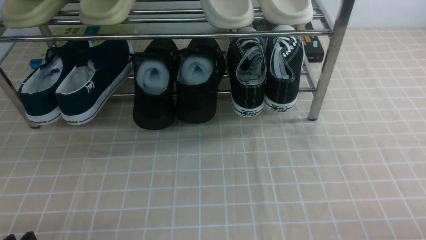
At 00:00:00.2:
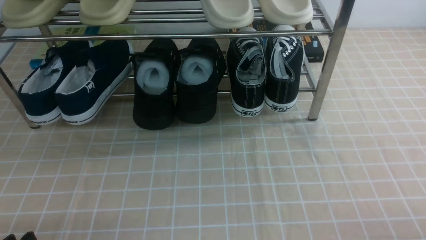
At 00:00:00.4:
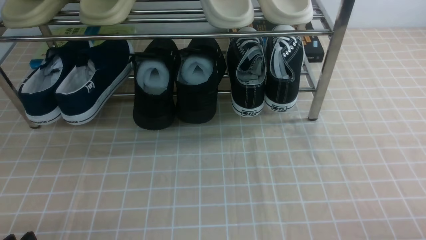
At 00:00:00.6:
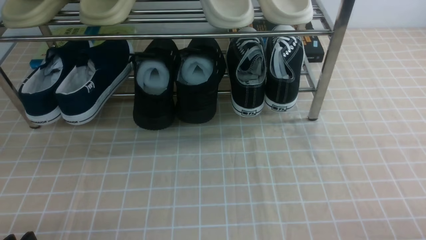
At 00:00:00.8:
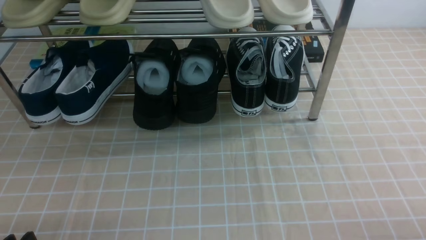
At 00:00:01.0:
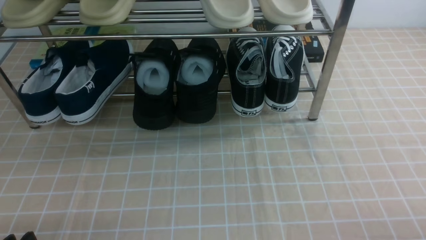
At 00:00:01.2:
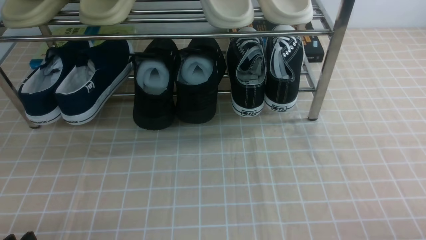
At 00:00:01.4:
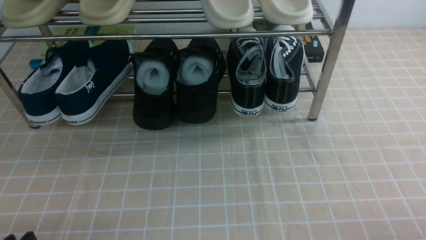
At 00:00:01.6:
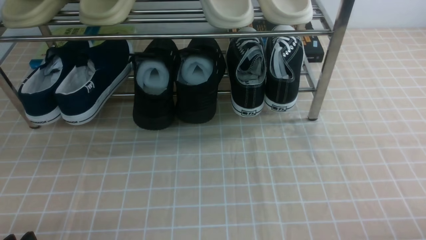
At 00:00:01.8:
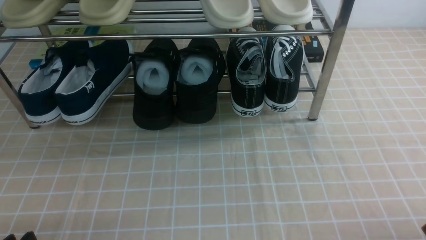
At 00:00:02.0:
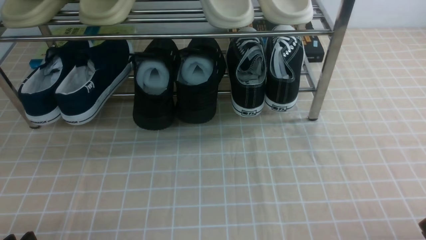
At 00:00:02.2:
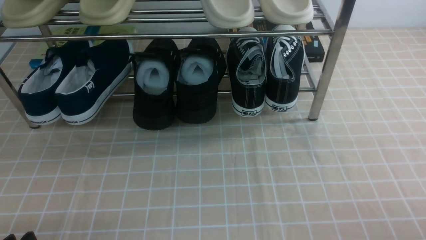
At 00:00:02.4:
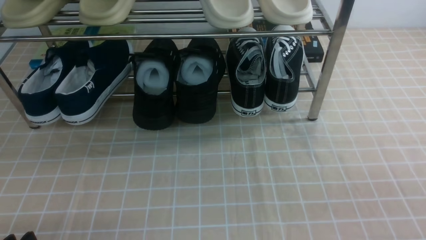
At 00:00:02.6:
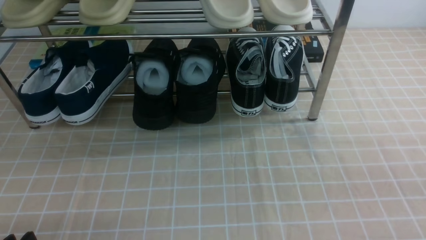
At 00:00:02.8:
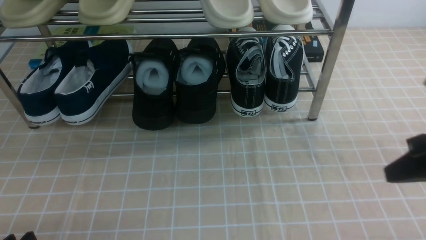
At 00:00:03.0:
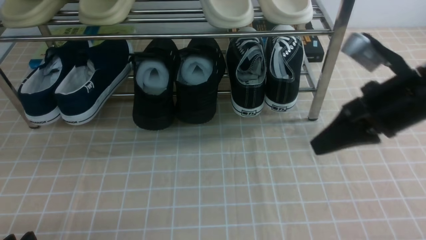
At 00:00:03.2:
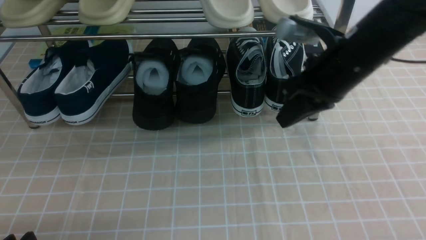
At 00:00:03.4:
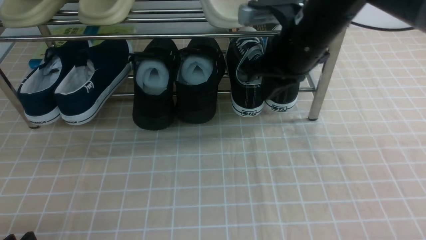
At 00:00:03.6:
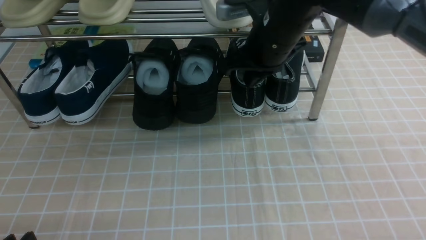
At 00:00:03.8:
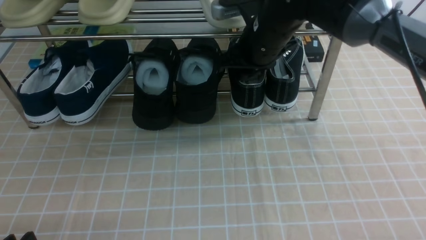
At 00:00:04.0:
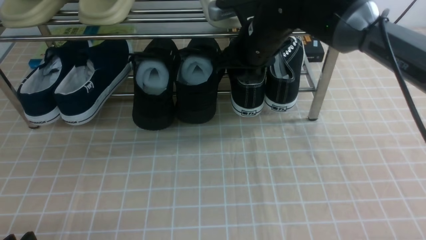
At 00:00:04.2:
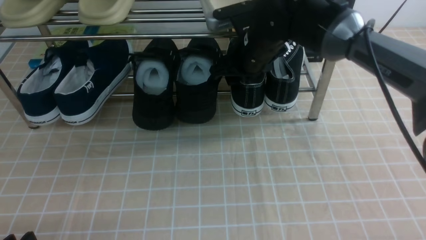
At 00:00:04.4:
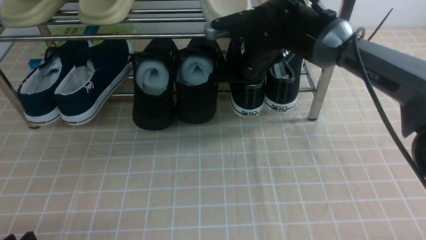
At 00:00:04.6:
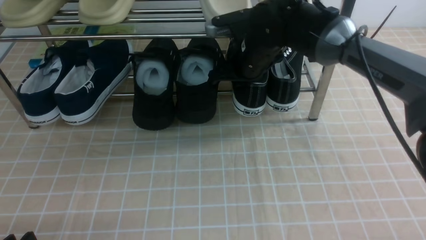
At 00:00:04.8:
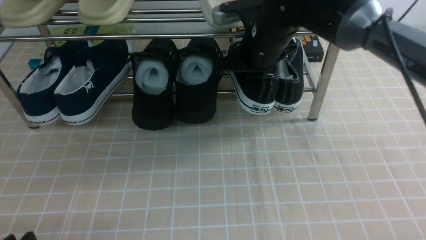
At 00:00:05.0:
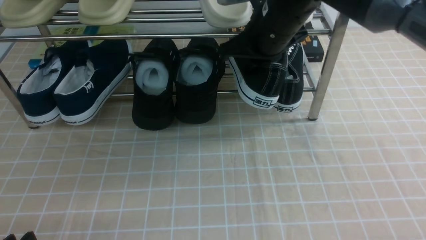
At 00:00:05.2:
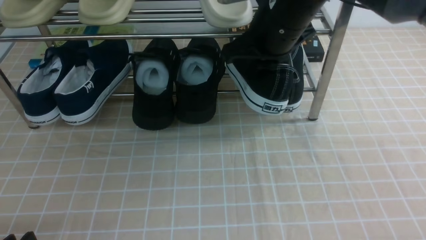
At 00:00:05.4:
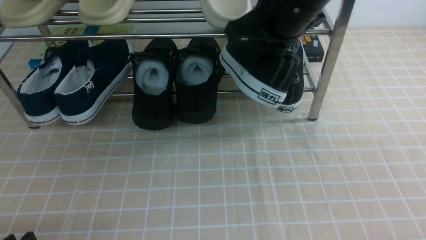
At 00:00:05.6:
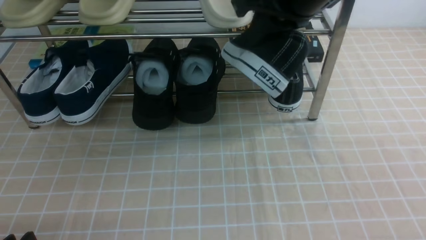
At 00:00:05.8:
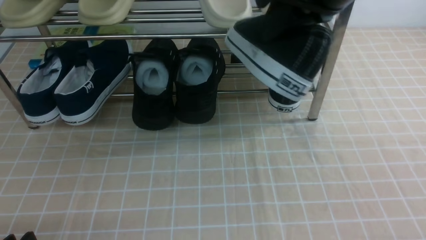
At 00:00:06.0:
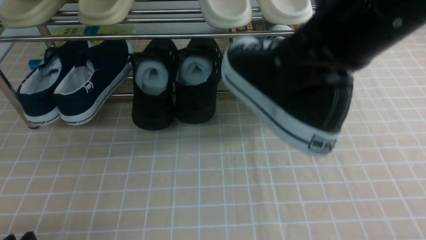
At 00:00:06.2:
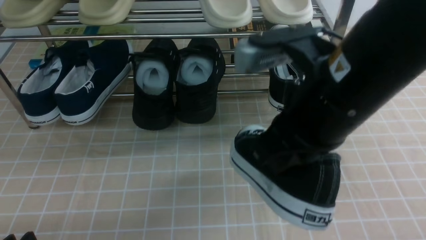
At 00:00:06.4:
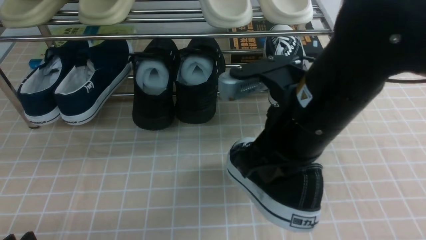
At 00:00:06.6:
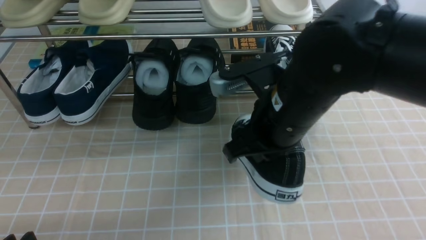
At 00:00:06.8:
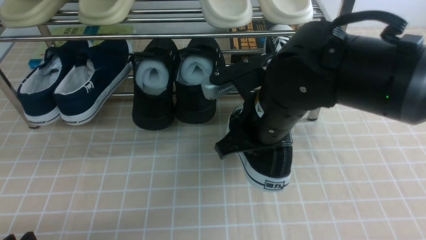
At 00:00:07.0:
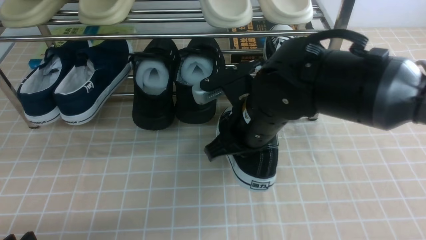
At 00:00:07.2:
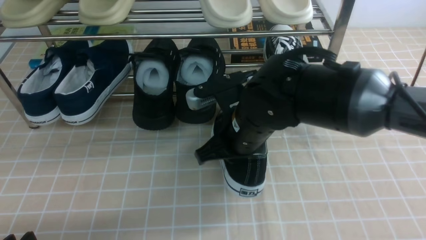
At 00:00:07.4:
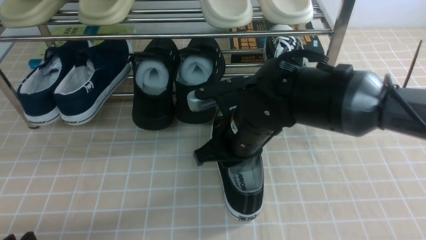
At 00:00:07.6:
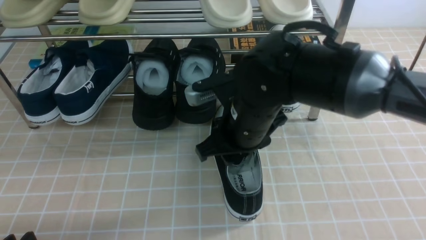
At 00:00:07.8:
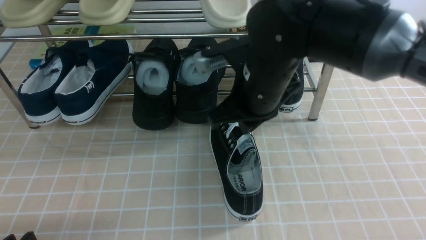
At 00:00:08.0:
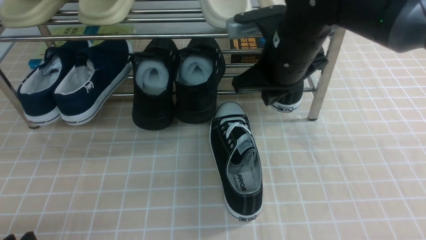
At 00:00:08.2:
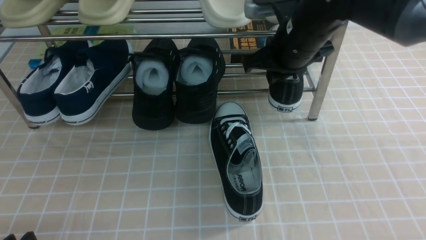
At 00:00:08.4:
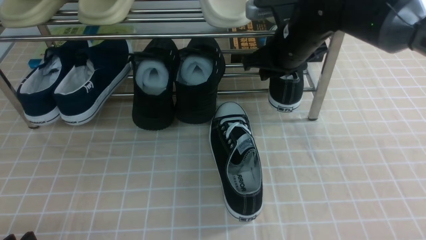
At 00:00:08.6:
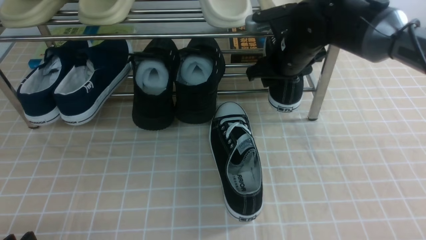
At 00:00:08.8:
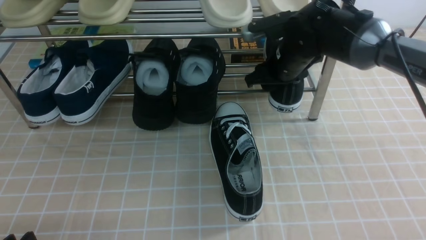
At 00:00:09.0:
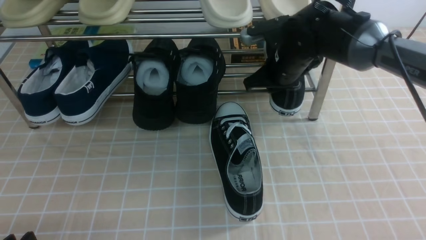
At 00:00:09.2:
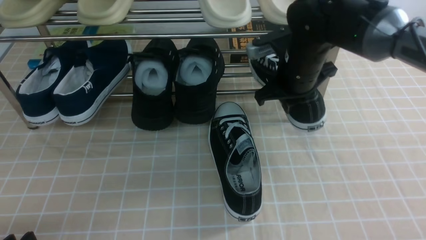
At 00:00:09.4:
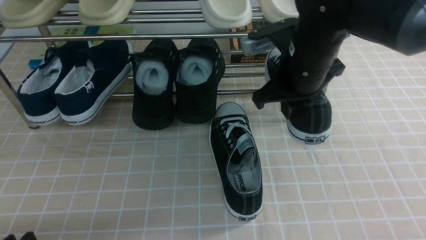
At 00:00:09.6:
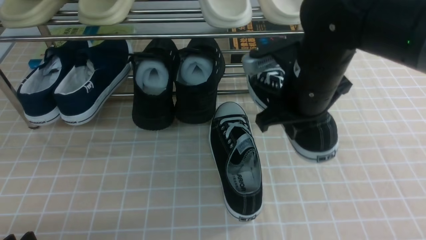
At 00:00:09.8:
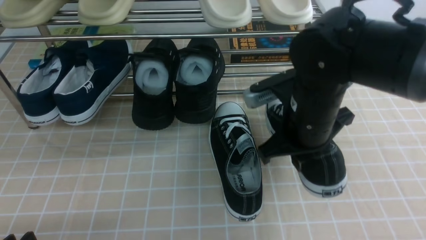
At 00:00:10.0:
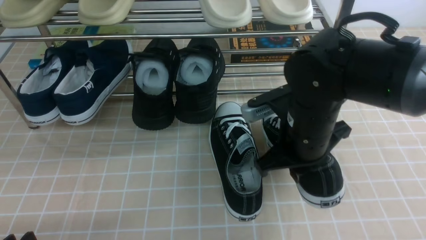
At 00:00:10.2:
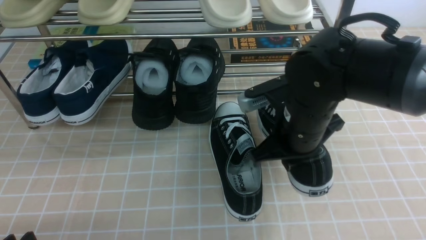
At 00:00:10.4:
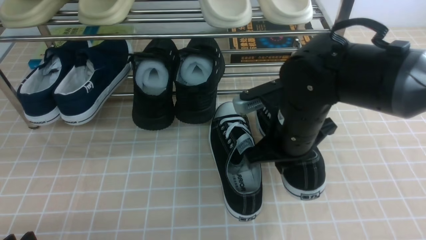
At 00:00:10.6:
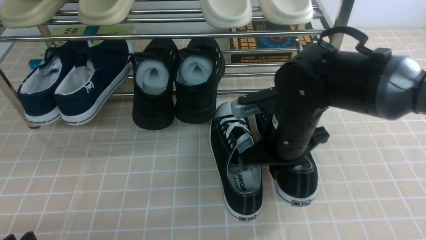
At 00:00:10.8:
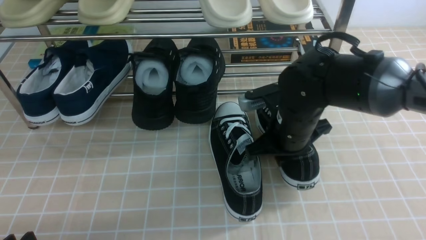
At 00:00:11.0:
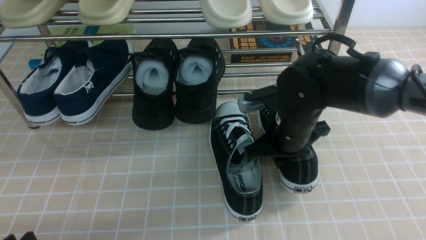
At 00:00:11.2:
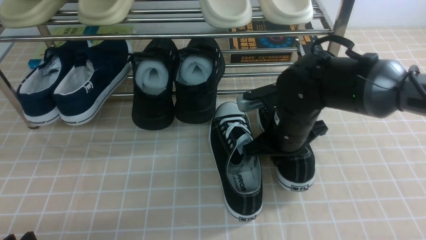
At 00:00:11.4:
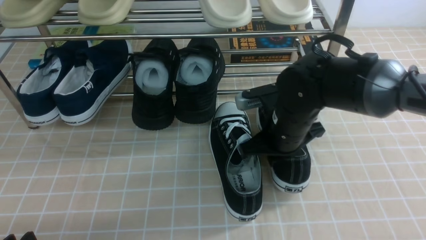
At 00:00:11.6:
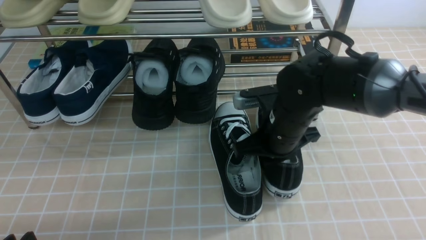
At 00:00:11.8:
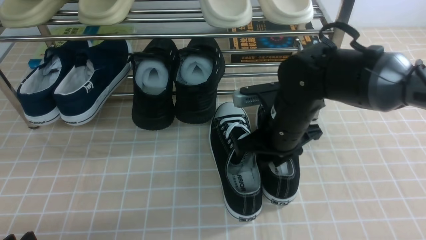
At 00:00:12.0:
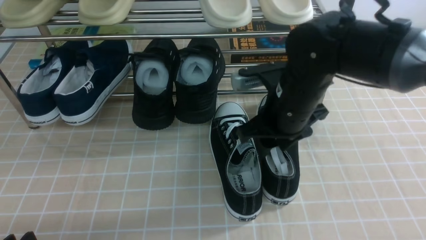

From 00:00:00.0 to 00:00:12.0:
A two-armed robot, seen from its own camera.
Step, from 00:00:00.0 to 00:00:04.2: use the right arm to clamp a shoe on the right side of the shoe rack.
Step, from 00:00:04.4 to 00:00:07.8: use the right arm to take out the clamped shoe from the shoe rack and put it down.
Step, from 00:00:08.0 to 00:00:08.8: use the right arm to clamp a shoe on the right side of the shoe rack.
Step, from 00:00:09.0 to 00:00:11.8: use the right arm to take out the clamped shoe from the shoe rack and put it down.
From 00:00:01.6 to 00:00:03.0: The right gripper heads forward and upward, covering approximately 25 cm, and closes up.
From 00:00:03.0 to 00:00:04.4: The right gripper shifts approximately 30 cm forward and to the left, and opens its fingers.
From 00:00:04.4 to 00:00:06.0: The right gripper is displaced backward and upward by some 25 cm, and closes.
From 00:00:06.0 to 00:00:07.6: The right gripper shifts roughly 20 cm downward and to the left, and opens up.
From 00:00:07.6 to 00:00:09.0: The right gripper heads forward and to the right, covering roughly 15 cm, and closes and opens again.
From 00:00:09.0 to 00:00:10.4: The right gripper goes approximately 15 cm backward, and closes up.
From 00:00:10.4 to 00:00:12.0: The right gripper opens up.

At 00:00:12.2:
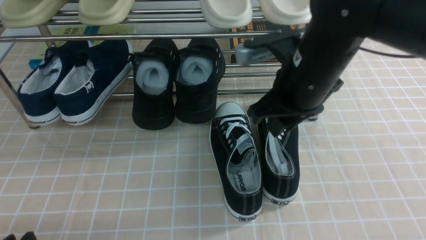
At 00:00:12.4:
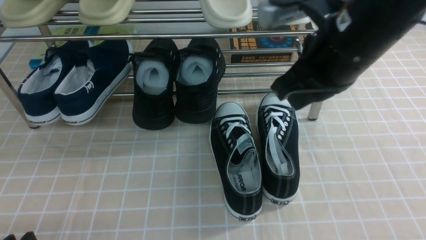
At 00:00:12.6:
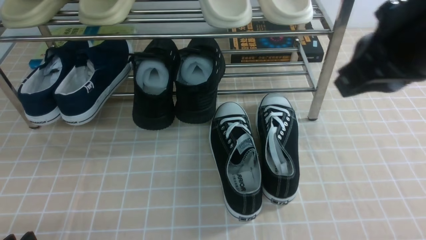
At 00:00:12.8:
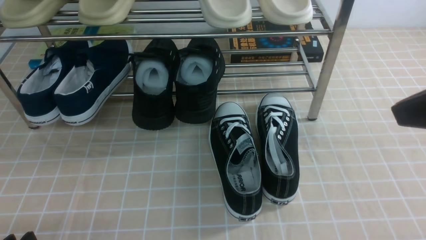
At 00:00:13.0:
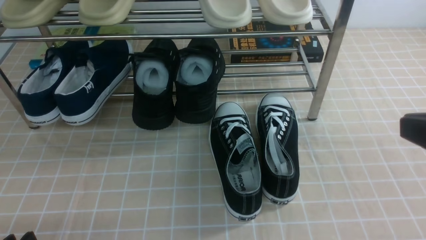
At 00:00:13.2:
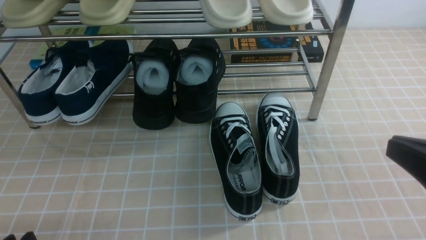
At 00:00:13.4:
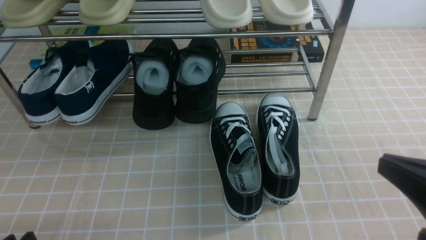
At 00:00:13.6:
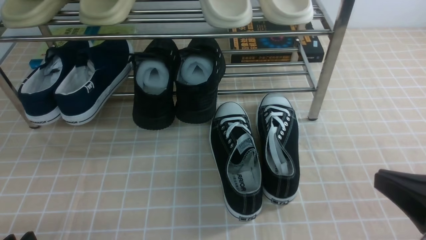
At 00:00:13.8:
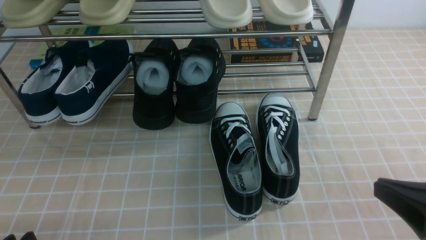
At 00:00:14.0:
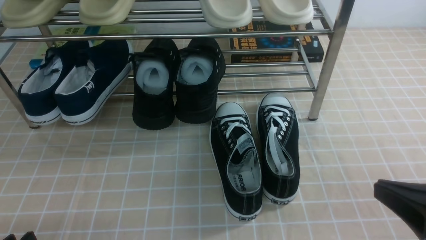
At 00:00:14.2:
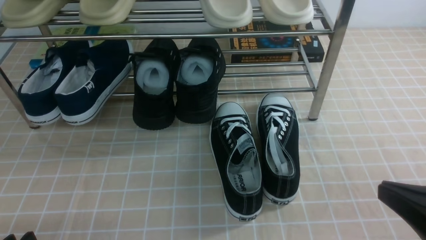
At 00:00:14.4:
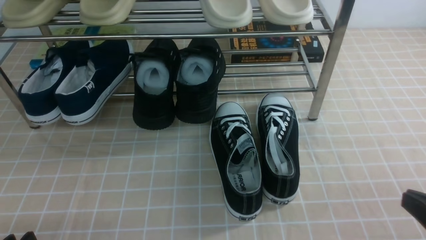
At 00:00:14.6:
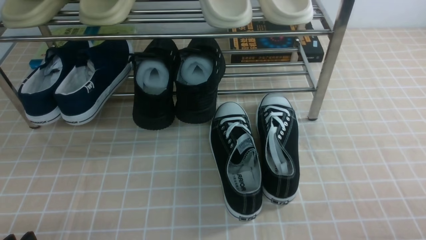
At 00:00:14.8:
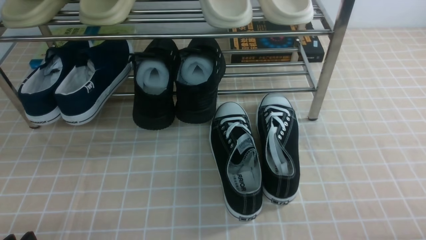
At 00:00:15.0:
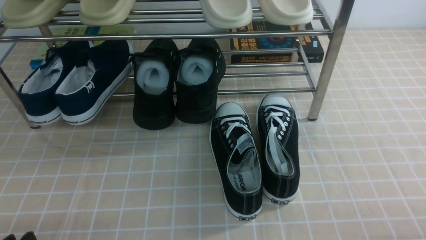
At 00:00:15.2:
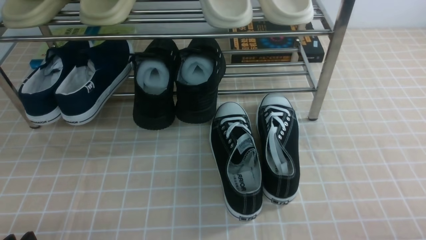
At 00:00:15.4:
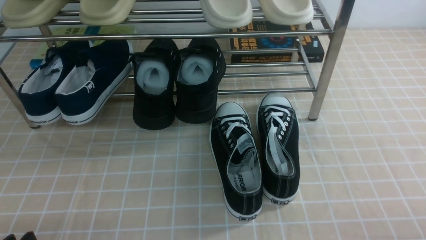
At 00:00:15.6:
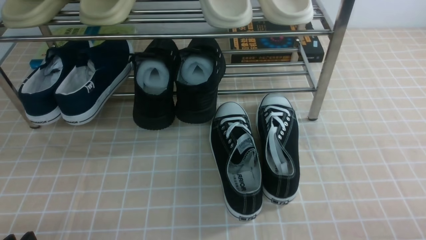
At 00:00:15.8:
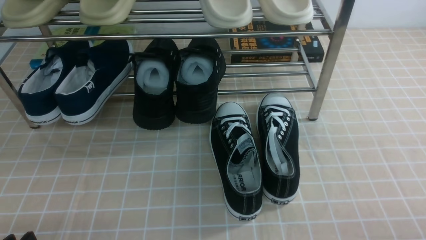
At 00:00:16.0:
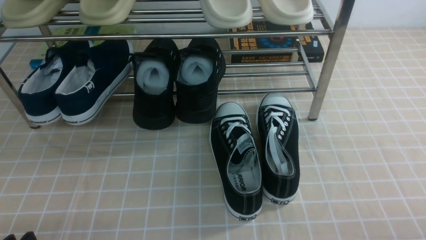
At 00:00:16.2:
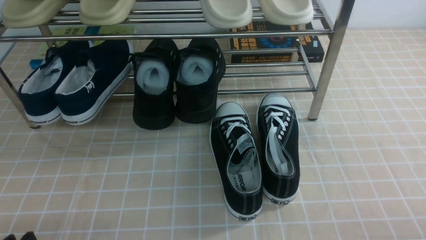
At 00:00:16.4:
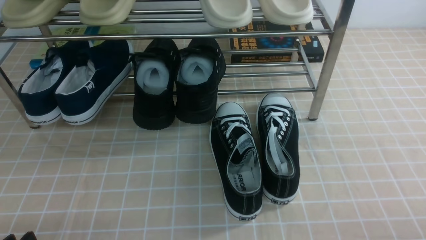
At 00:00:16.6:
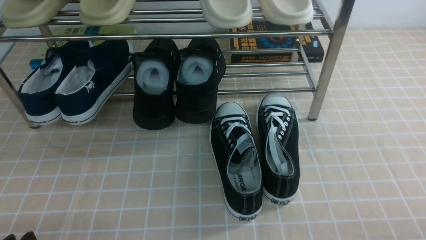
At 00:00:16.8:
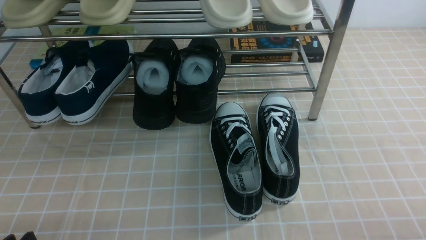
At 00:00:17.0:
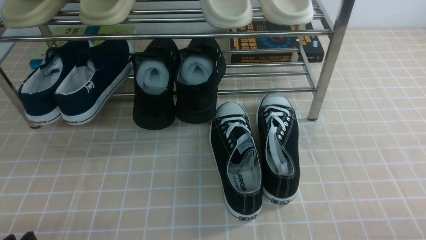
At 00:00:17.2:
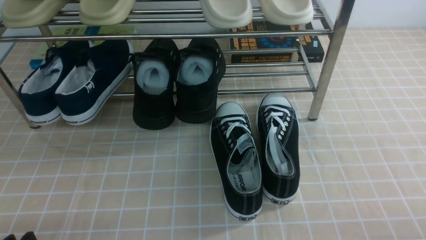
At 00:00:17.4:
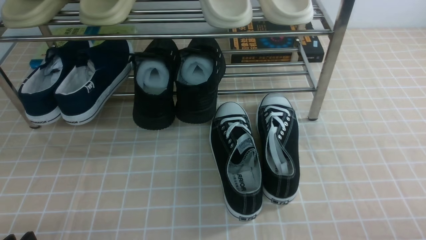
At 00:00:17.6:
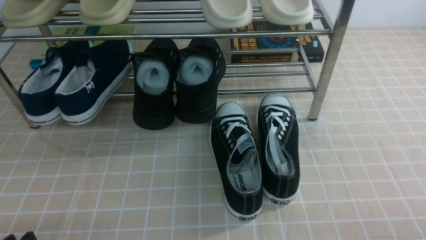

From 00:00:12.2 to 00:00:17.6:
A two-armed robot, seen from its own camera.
From 00:00:12.2 to 00:00:13.6: The right gripper shifts some 25 cm backward and to the right, and closes up.
From 00:00:13.6 to 00:00:15.0: The right gripper is displaced downward and to the right by roughly 10 cm.
From 00:00:16.2 to 00:00:17.6: Both grippers stay put.
